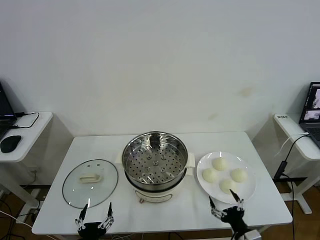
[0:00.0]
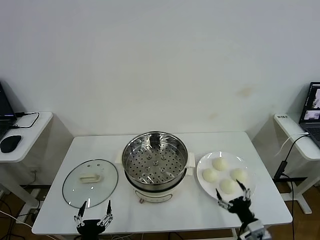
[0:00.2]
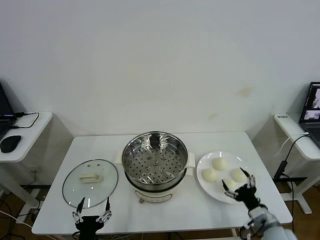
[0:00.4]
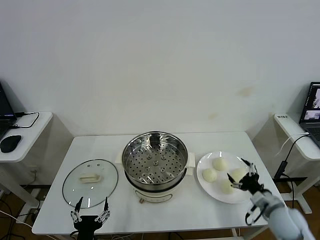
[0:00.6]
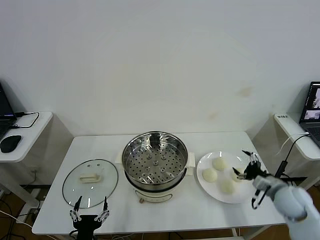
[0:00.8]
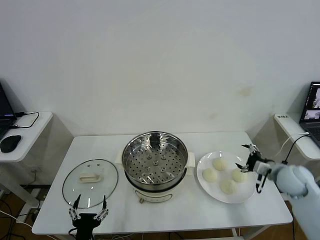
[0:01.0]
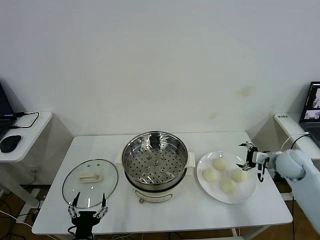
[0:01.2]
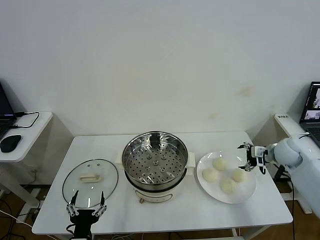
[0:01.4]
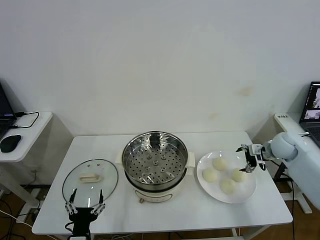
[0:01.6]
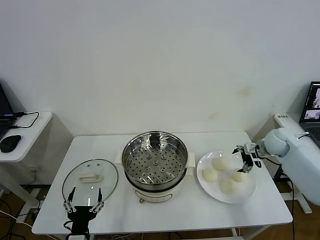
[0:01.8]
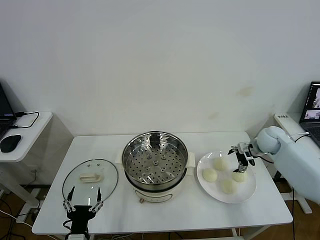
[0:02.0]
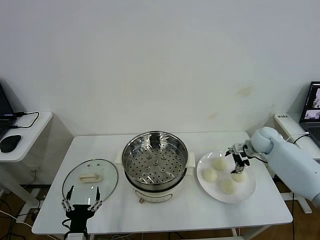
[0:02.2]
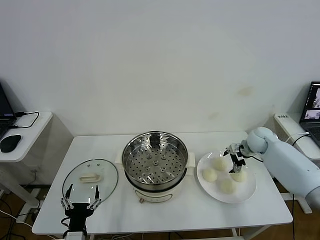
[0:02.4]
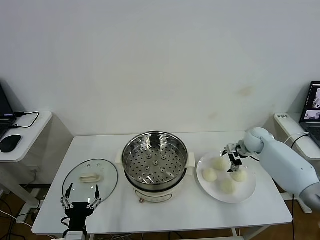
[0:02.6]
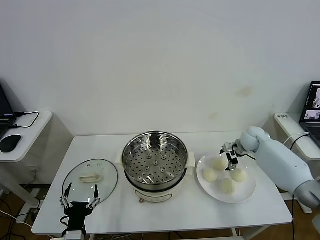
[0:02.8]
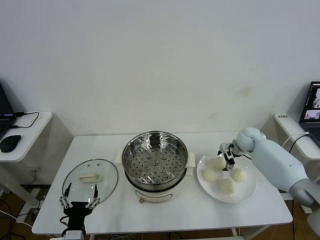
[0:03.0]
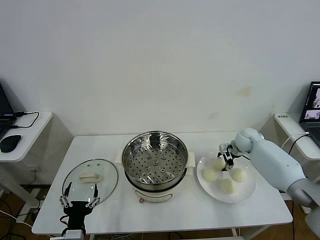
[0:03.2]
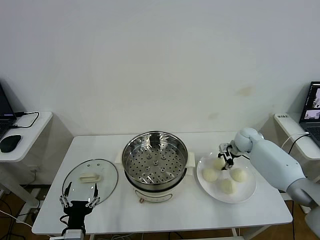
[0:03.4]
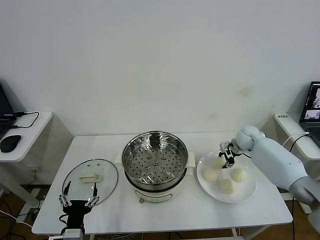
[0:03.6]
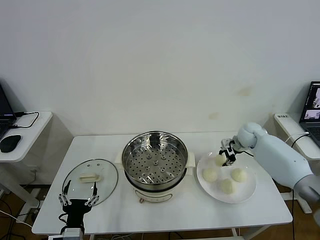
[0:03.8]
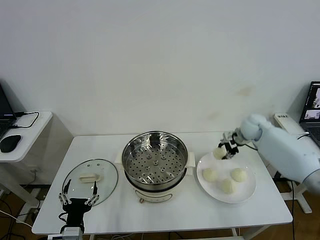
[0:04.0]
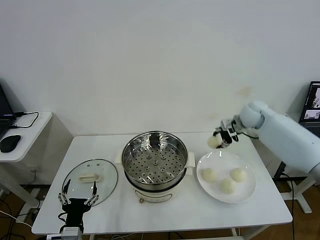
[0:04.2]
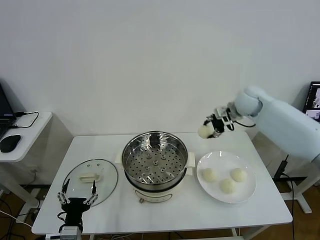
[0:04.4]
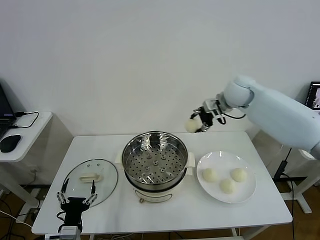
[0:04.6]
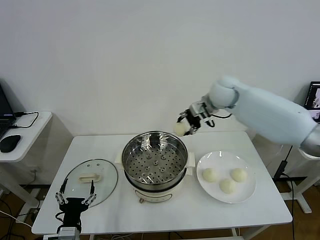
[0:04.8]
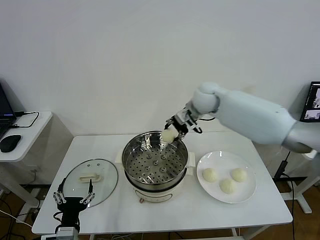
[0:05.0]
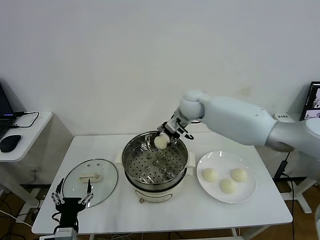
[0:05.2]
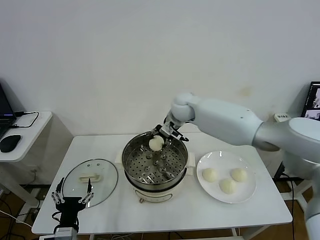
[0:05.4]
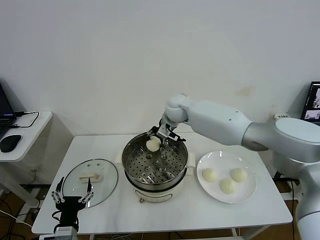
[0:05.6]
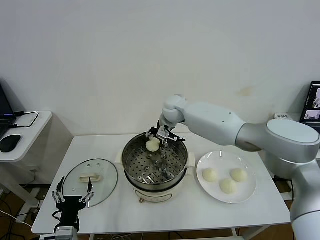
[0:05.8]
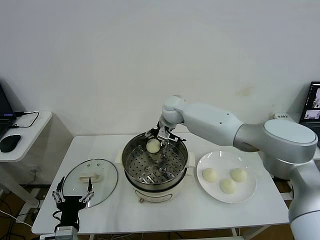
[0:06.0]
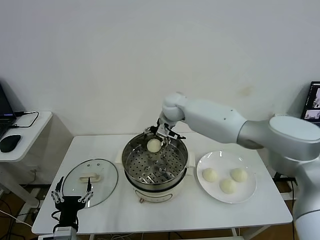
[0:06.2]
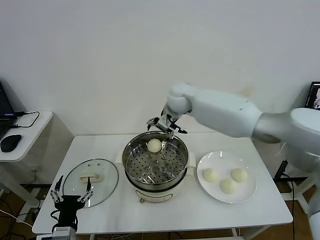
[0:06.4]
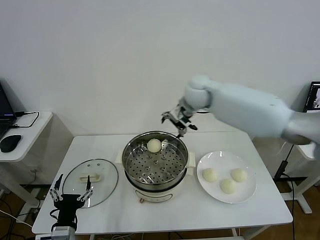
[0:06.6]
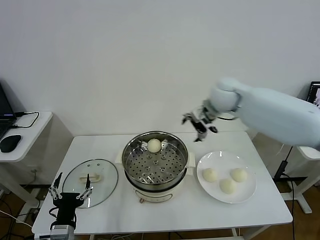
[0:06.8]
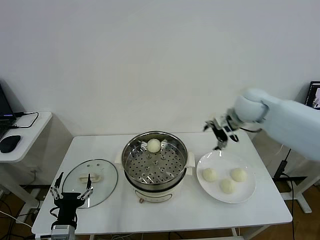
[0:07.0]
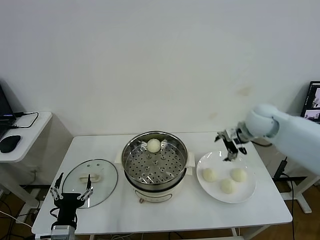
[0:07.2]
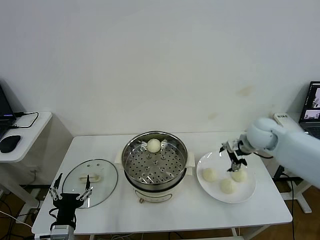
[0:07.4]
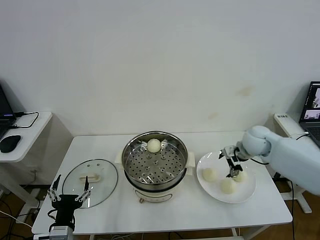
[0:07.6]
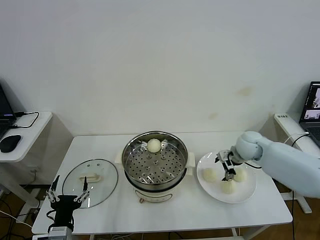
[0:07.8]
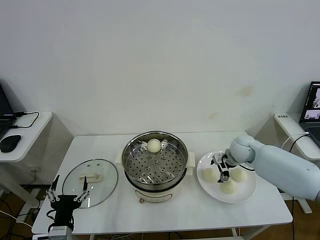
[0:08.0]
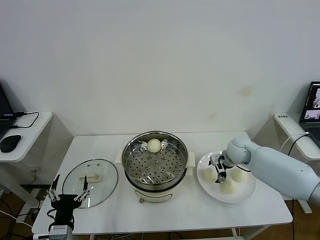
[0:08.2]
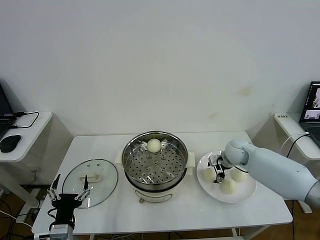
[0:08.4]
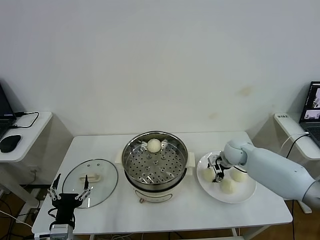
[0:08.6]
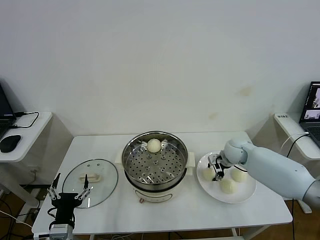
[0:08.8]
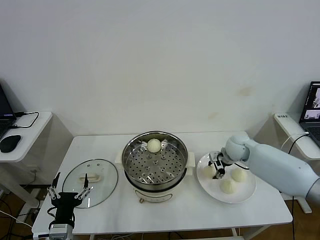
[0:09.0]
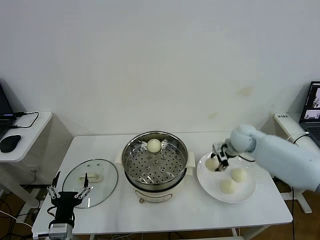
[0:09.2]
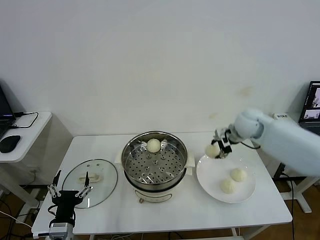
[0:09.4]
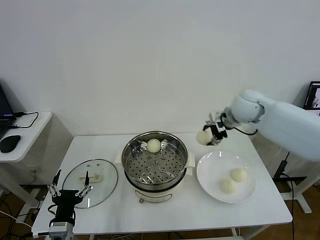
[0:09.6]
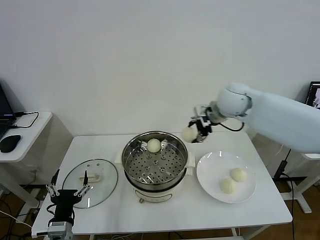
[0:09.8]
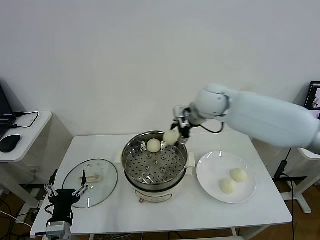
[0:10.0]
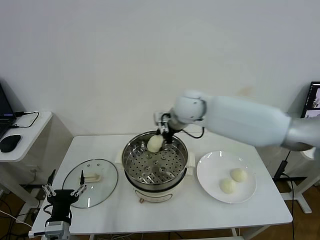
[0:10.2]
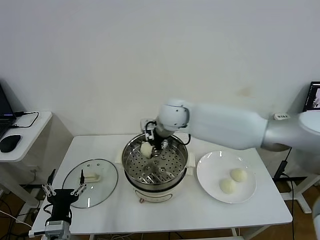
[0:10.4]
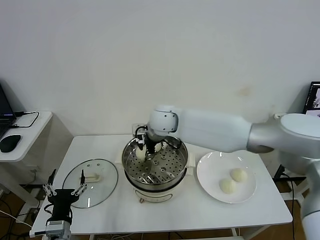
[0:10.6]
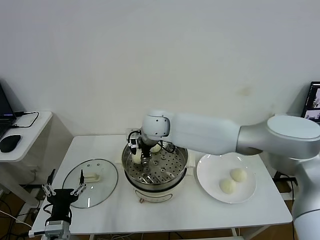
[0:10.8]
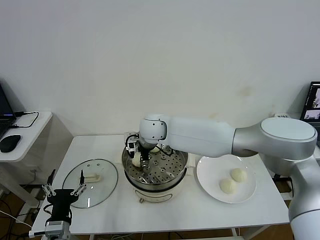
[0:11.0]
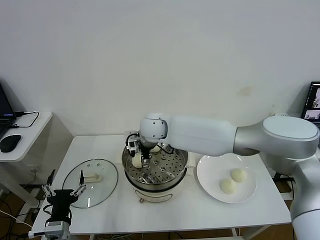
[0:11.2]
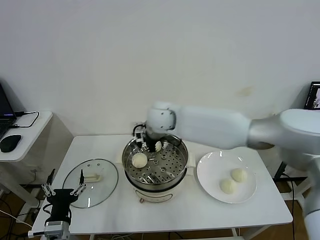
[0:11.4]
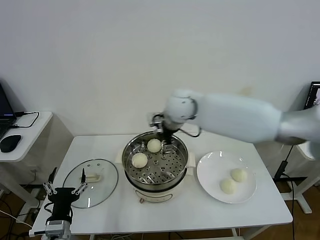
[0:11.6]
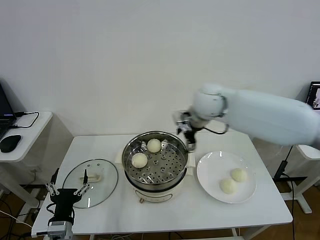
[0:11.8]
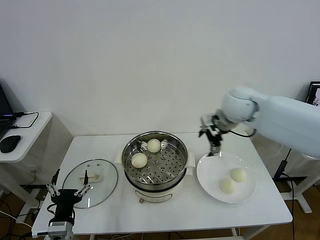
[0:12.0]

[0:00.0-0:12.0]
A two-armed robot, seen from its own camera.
Step, 0:00.0 to 0:03.4: Grasp the baozi in the plate with right gripper.
Step, 0:03.8 to 0:06.0: Place the baozi on the steamer with right gripper.
Step, 0:06.2 to 0:08.8: Grasp the baozi in the plate with right gripper.
Step, 0:09.0 to 0:11.0: Place the baozi on the steamer with right gripper.
0:01.6 to 0:03.0: The right gripper shifts roughly 10 cm to the left, forward and downward.
0:03.0 to 0:04.4: The right gripper is displaced upward and to the left by some 25 cm, and closes its fingers.
0:04.4 to 0:06.0: The right gripper travels to the left by approximately 20 cm, and opens up.
0:06.0 to 0:07.6: The right gripper travels to the right by some 25 cm.
0:07.6 to 0:09.0: The right gripper closes its fingers.
0:09.0 to 0:10.4: The right gripper travels to the left and upward by about 30 cm.
0:10.4 to 0:12.0: The right gripper heads to the right, covering roughly 25 cm, and opens.

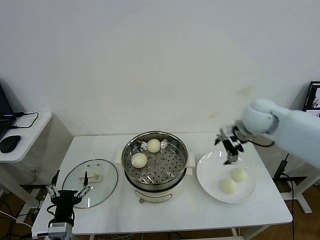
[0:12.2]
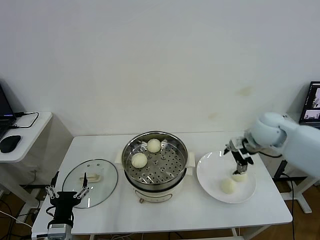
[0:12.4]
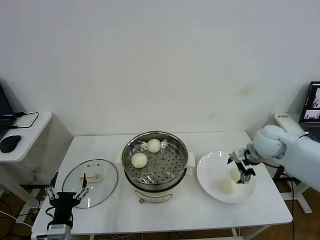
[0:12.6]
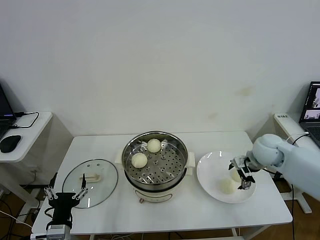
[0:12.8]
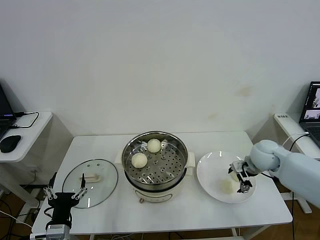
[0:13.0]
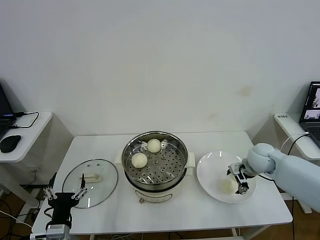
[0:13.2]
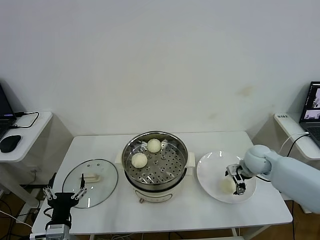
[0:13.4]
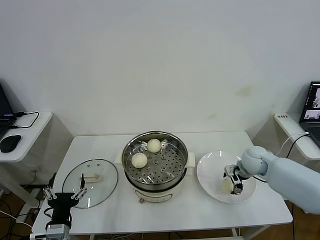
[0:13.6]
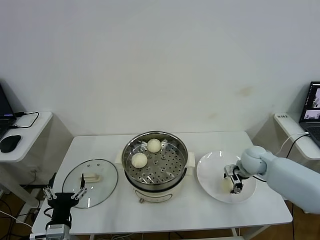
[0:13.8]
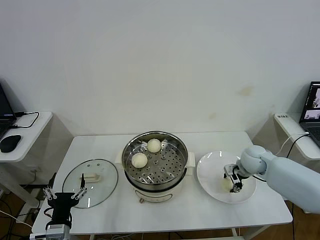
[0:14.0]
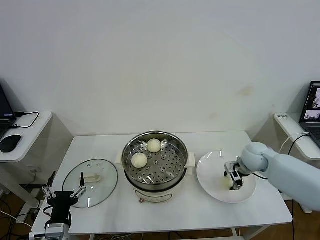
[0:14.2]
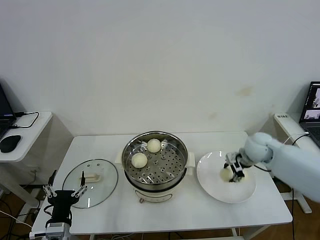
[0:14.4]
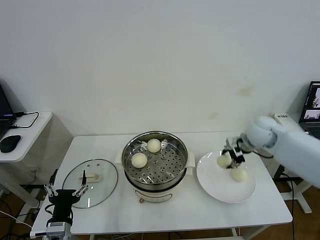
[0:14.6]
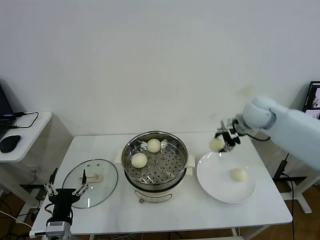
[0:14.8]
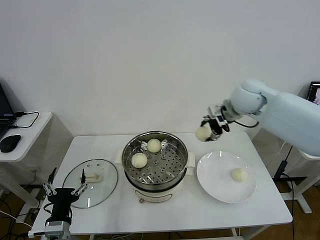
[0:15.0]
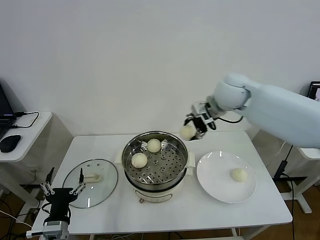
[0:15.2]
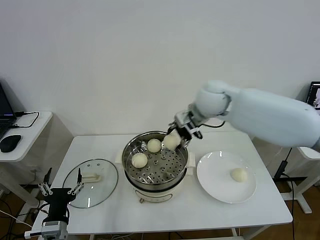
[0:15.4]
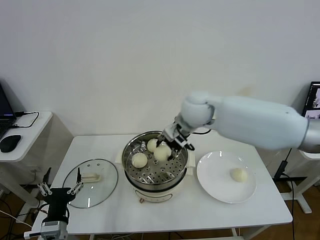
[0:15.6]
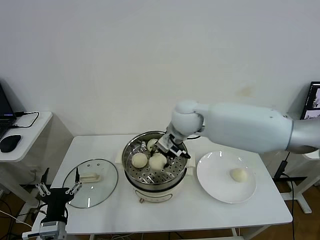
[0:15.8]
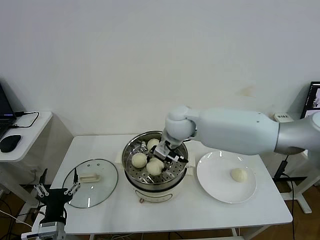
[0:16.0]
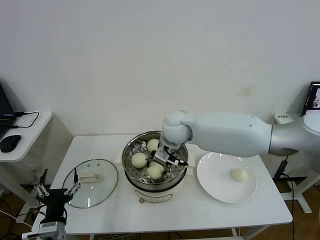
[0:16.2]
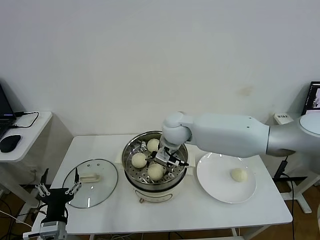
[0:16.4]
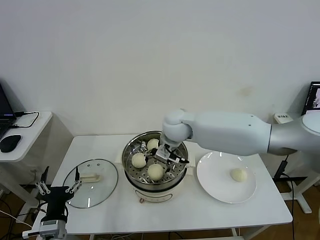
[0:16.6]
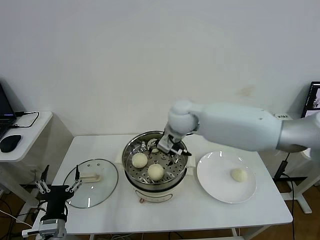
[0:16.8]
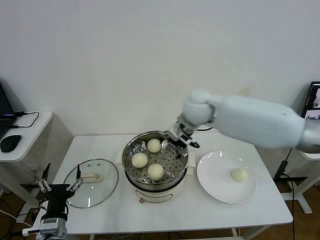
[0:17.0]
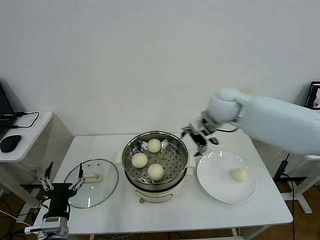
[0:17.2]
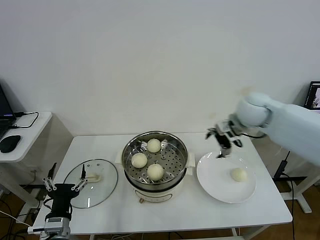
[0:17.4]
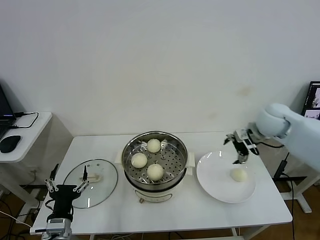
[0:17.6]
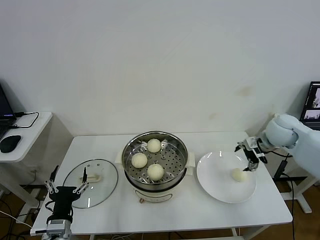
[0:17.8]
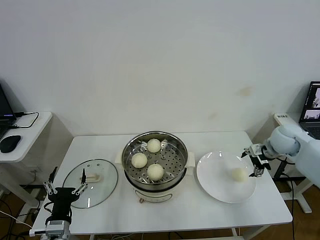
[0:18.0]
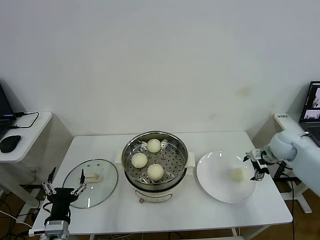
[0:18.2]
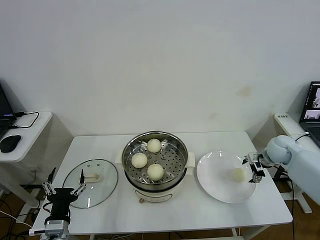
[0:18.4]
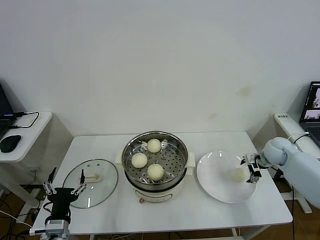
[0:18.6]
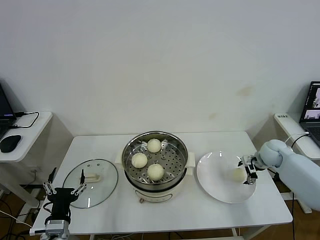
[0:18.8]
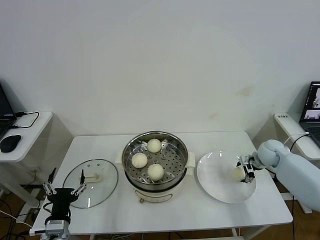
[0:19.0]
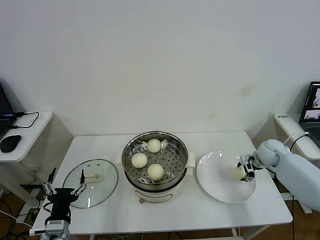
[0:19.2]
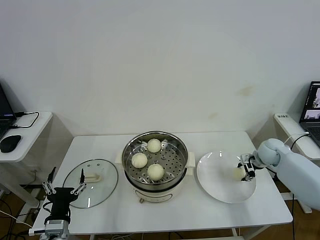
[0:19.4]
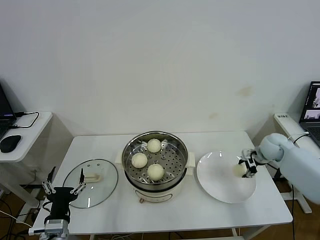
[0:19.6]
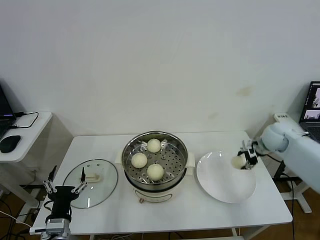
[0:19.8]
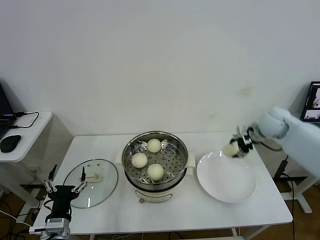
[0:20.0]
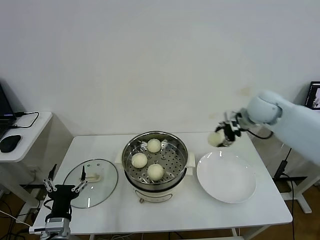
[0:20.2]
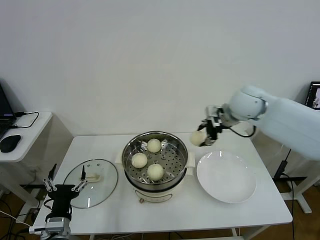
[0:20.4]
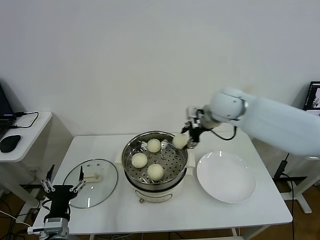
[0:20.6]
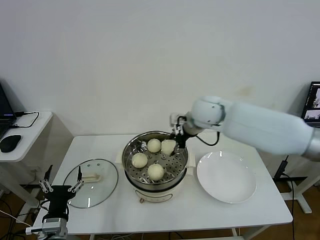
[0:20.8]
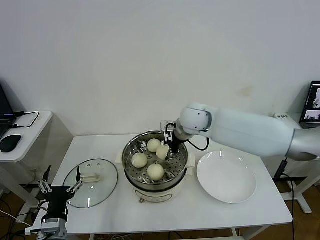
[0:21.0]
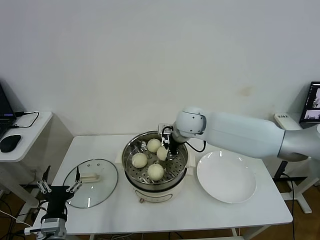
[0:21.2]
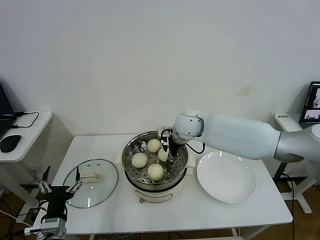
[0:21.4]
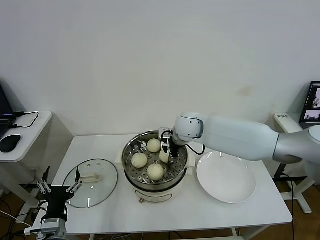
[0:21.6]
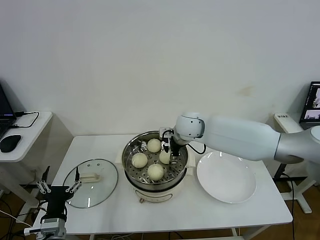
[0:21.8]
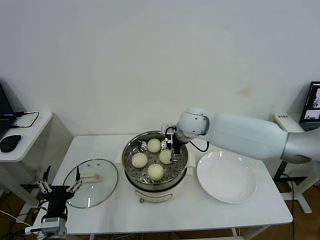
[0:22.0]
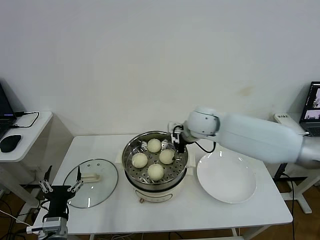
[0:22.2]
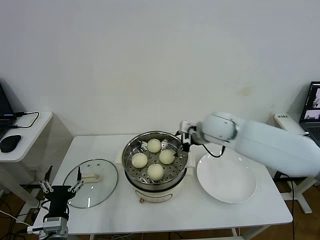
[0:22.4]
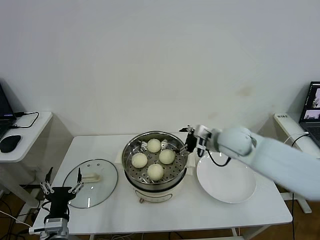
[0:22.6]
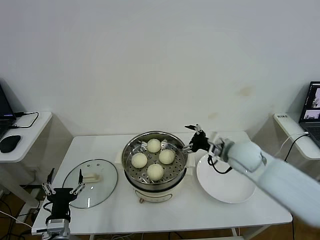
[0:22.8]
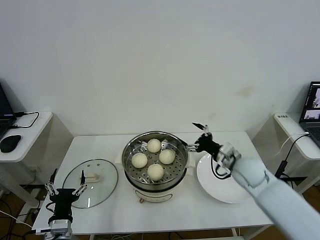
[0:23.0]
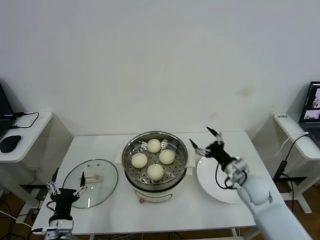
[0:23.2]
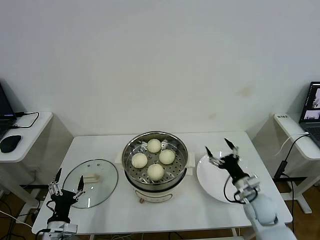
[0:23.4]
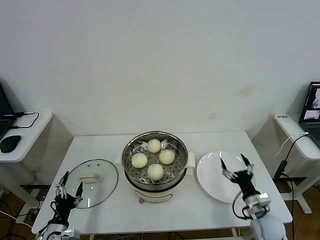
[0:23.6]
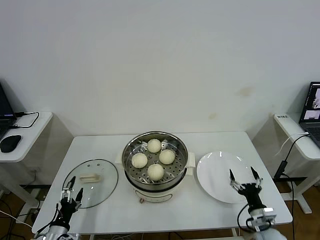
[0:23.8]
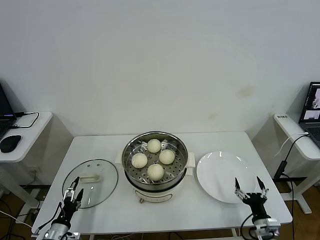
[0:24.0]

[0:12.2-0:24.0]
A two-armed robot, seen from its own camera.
Step, 0:12.2 to 0:13.8: Grasp the baozi in the plate with right gripper.
Step, 0:14.0 to 0:16.4: Place the baozi on the steamer with right gripper.
Step, 0:16.6 to 0:19.4: Grasp the baozi in the plate with right gripper.
Step, 0:19.6 to 0:21.6: Place the baozi on the steamer with right gripper.
0:12.2 to 0:13.6: The right gripper shifts about 15 cm downward, and closes its fingers.
0:13.6 to 0:15.2: The right gripper is displaced upward and to the left by about 30 cm, and closes.
0:15.2 to 0:16.6: The right gripper heads to the left and downward, covering approximately 15 cm, and opens.
0:16.6 to 0:18.2: The right gripper shifts some 40 cm to the right.
0:18.2 to 0:19.6: The right gripper closes its fingers.
0:19.6 to 0:21.0: The right gripper is displaced to the left and upward by approximately 35 cm.
0:21.0 to 0:22.6: The right gripper travels to the right and backward by about 15 cm, and opens its fingers.
0:22.6 to 0:24.0: The left gripper goes approximately 15 cm downward and to the left; the right gripper shifts about 40 cm downward, backward and to the right.
